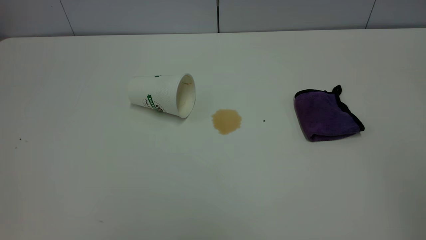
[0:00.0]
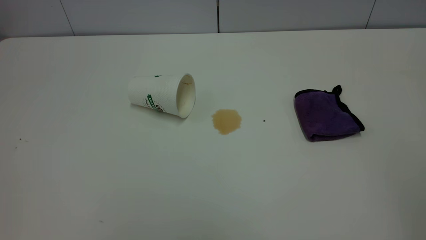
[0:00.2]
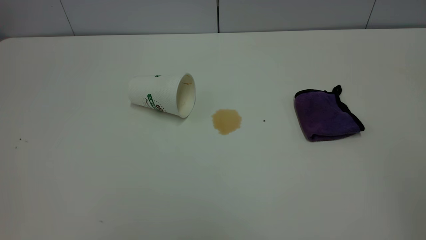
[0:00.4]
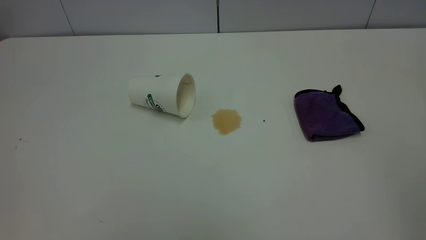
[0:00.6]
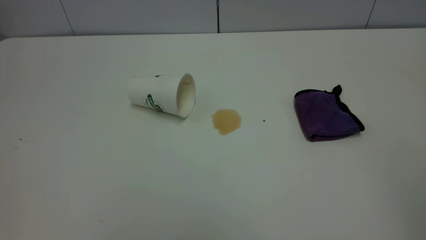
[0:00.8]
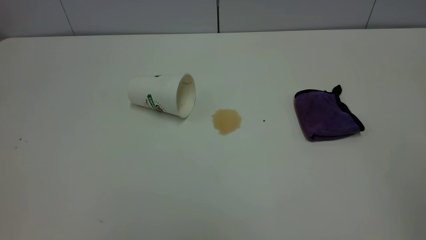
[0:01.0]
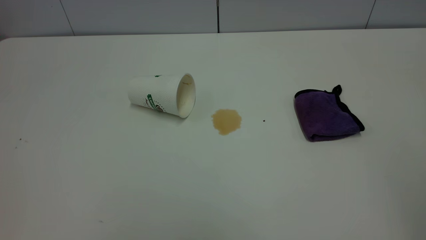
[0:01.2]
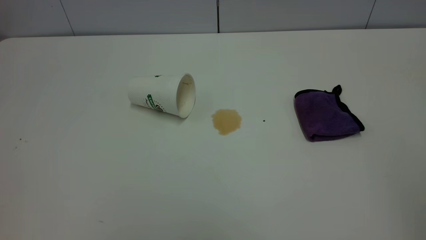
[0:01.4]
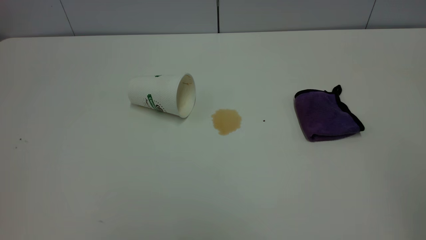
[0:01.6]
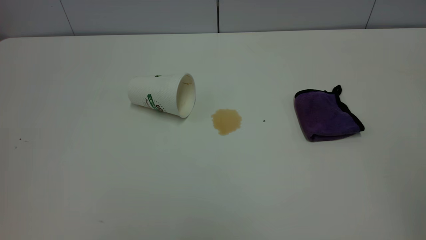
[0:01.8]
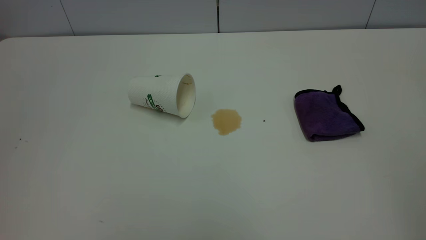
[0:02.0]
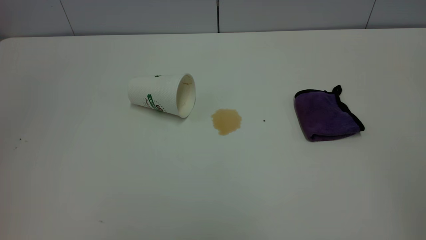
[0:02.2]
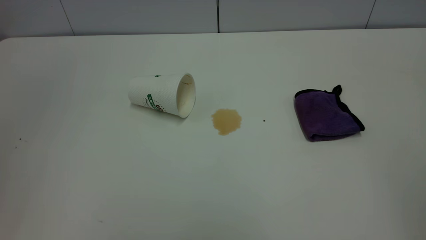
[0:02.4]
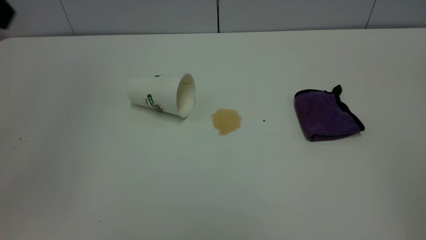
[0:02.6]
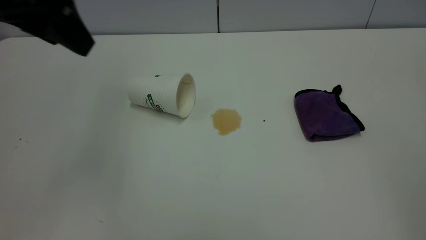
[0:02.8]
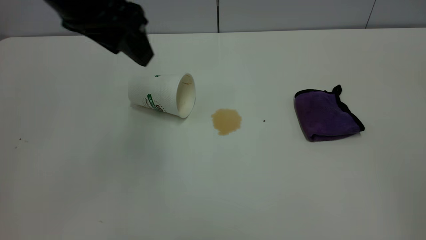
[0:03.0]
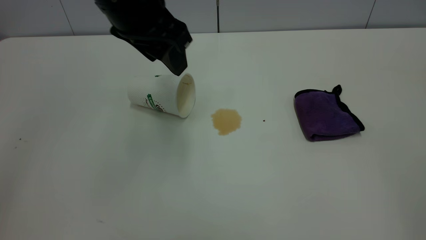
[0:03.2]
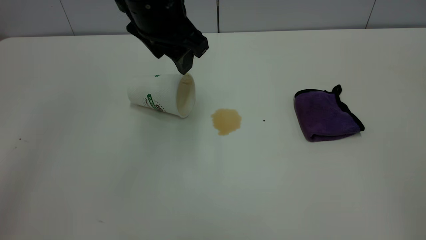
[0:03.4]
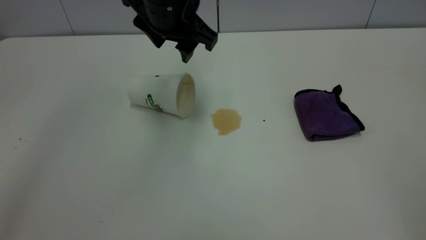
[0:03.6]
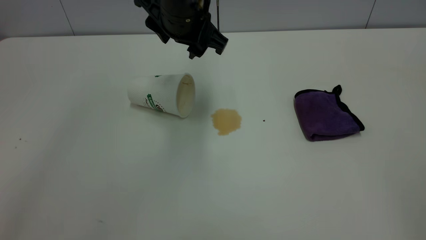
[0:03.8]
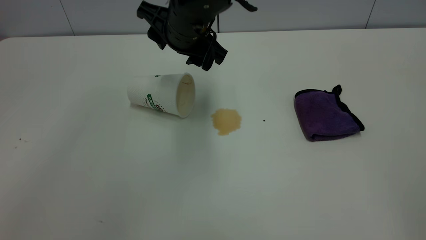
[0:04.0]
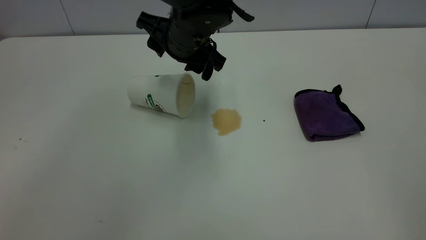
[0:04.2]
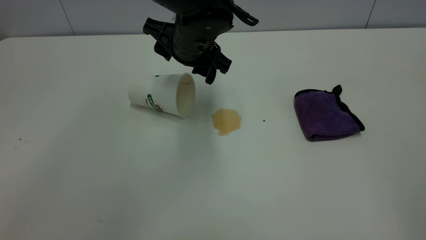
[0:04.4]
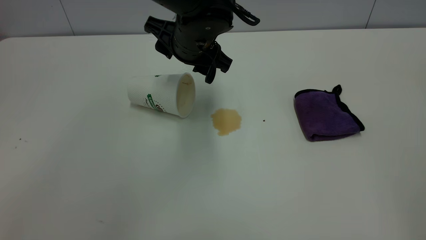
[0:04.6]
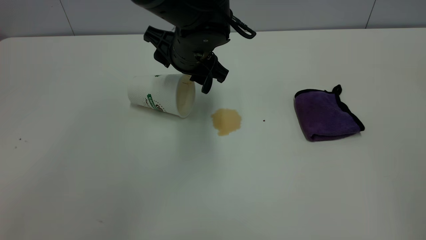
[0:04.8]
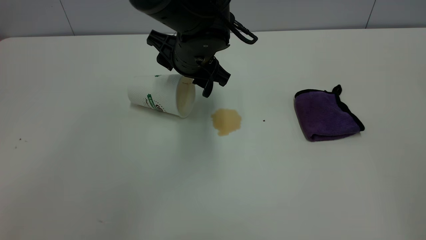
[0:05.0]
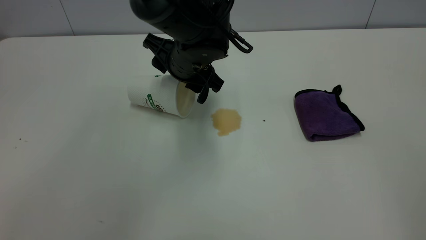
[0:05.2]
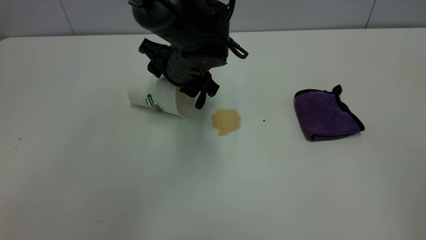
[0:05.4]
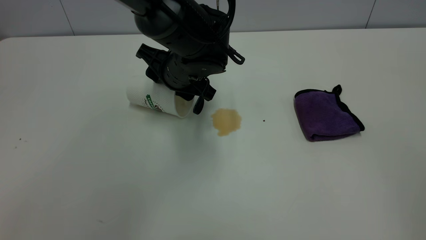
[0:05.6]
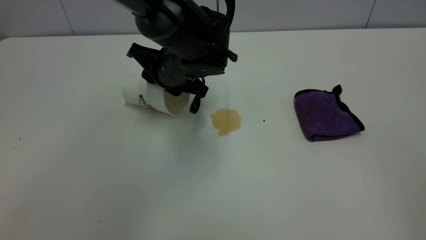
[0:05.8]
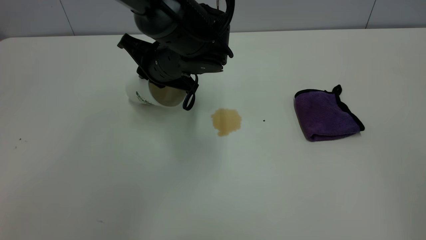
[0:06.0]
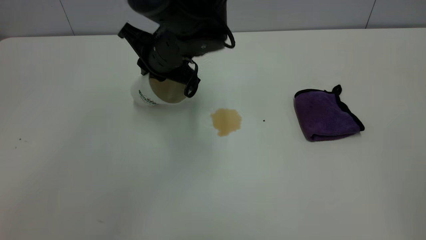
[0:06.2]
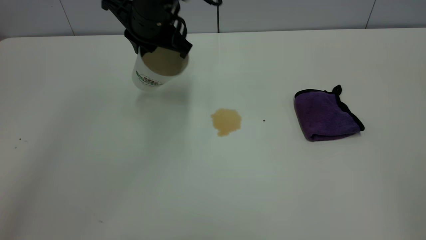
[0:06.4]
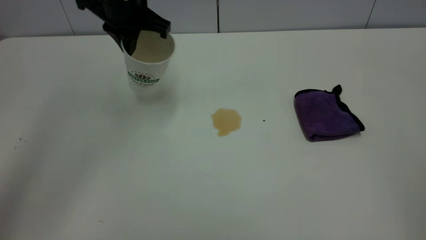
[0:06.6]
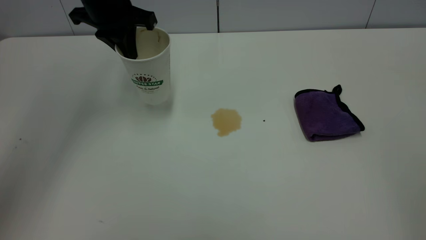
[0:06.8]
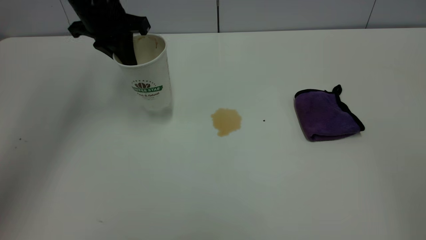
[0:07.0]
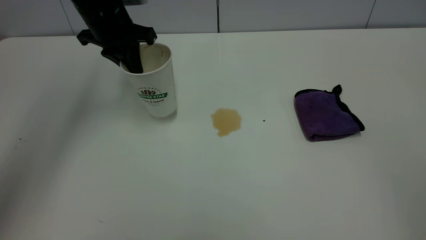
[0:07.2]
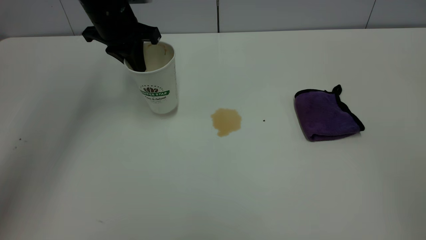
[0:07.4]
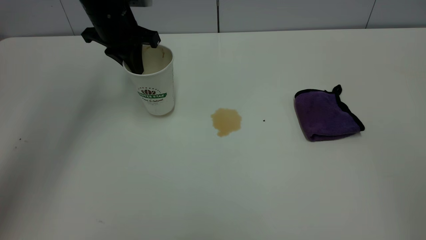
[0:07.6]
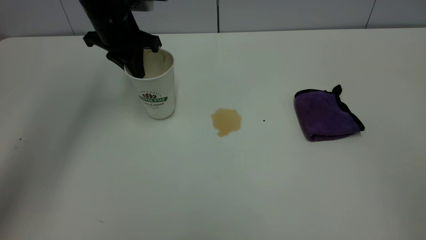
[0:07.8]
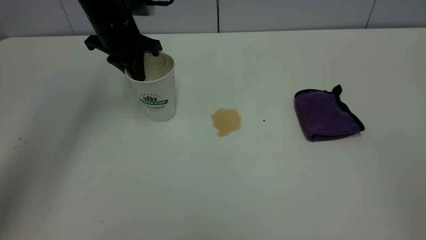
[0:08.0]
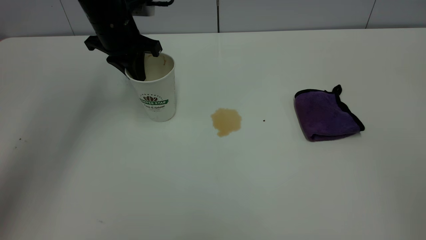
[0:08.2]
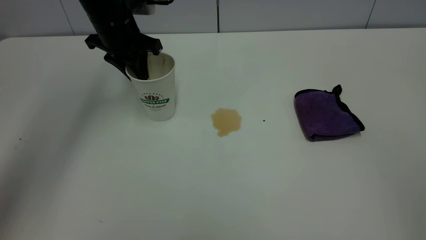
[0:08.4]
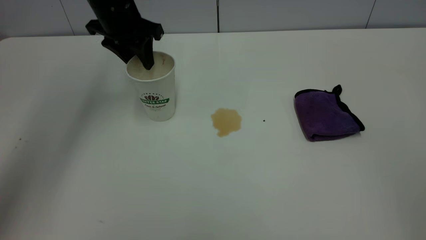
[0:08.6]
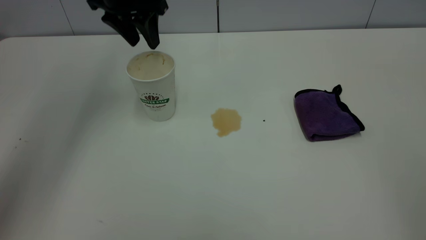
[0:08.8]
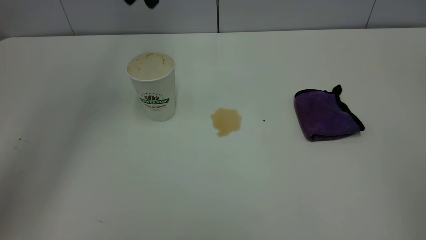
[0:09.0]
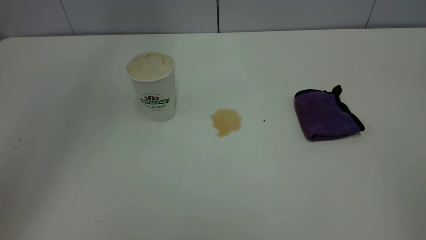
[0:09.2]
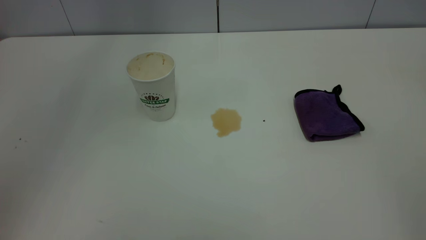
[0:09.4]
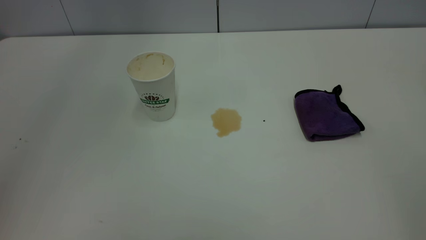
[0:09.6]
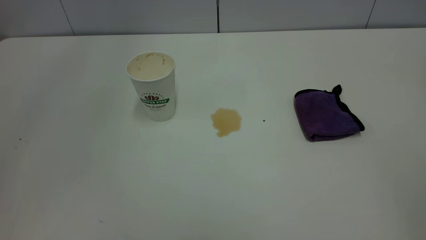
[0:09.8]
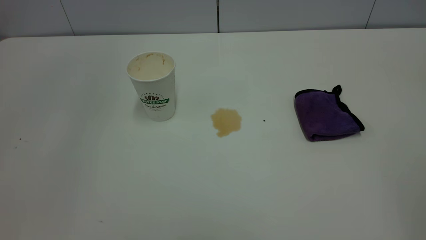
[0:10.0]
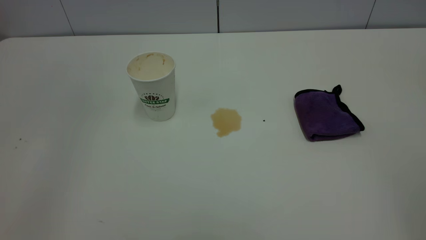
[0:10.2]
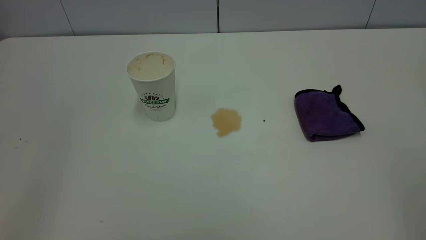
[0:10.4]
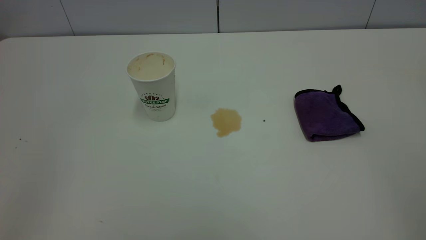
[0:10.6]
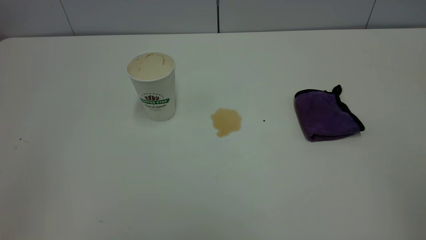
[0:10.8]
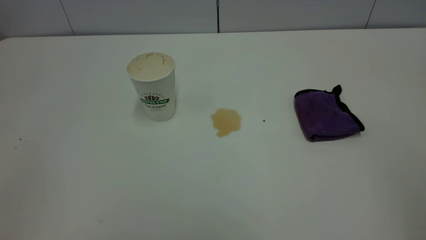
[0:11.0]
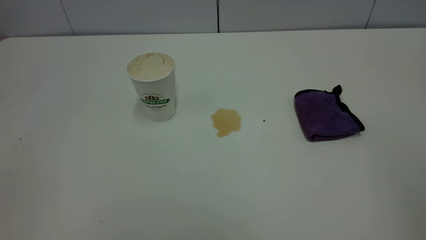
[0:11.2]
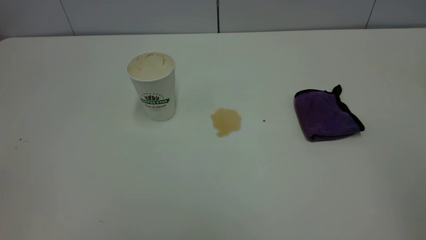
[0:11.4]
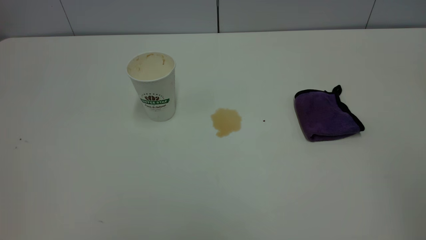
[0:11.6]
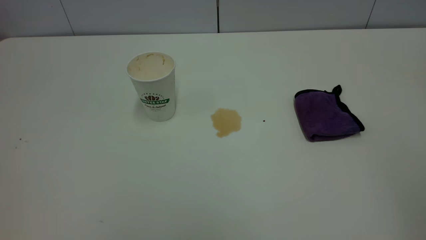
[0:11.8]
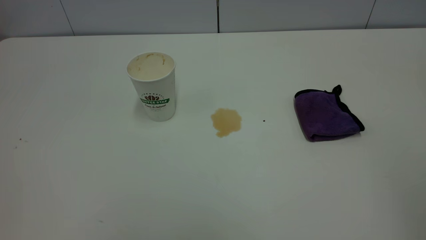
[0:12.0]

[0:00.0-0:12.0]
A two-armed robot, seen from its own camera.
Task of the whole recording: the left gripper pick up the fallen cup and place it upright, the right gripper grasp the purple rag and wipe the tea stain on the table, the right gripper put the purple rag back in its original position.
Step, 0:00.0 to 0:08.8: Stand the paper cup upright.
0:01.6 to 0:03.0: The left gripper goes approximately 35 cm forward and to the right.
0:03.0 to 0:04.4: The left gripper travels downward, to the right and forward by about 20 cm.
0:04.4 to 0:06.0: The left gripper ends up approximately 5 cm from where it was, and closes.
0:06.0 to 0:07.6: The left gripper shifts about 15 cm to the left, forward and upward.
0:07.6 to 0:09.0: The left gripper goes roughly 15 cm upward, and opens its fingers.
0:09.0 to 0:10.4: The left gripper shifts some 35 cm backward.

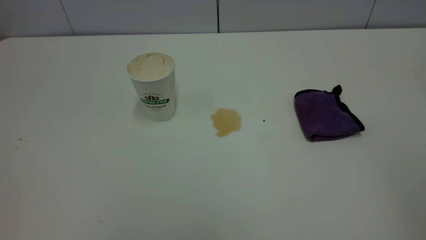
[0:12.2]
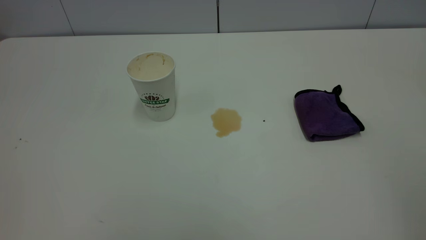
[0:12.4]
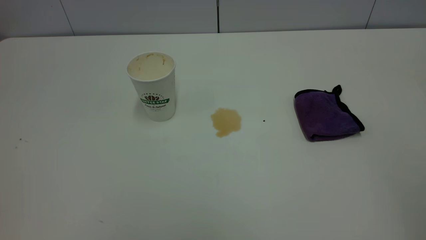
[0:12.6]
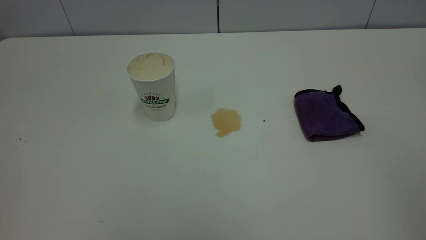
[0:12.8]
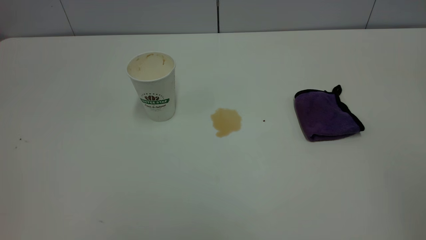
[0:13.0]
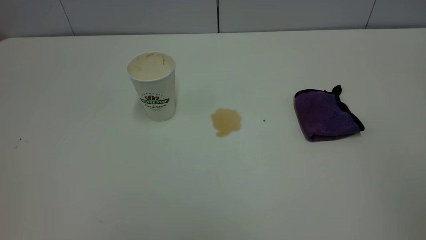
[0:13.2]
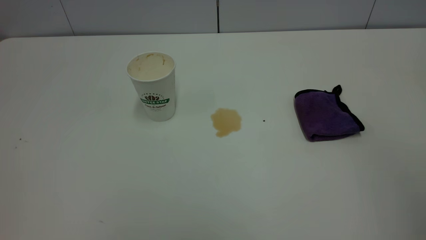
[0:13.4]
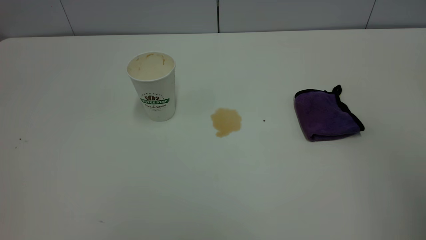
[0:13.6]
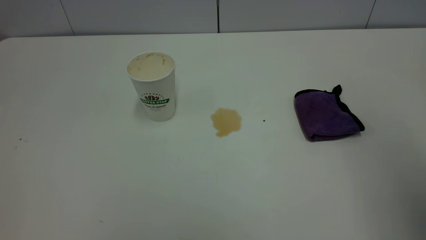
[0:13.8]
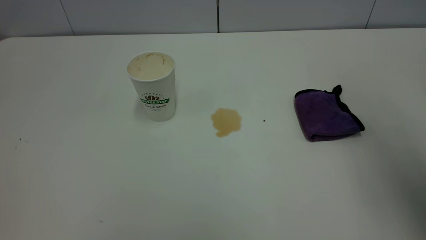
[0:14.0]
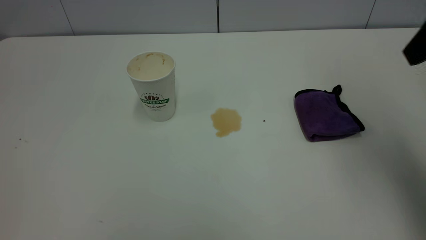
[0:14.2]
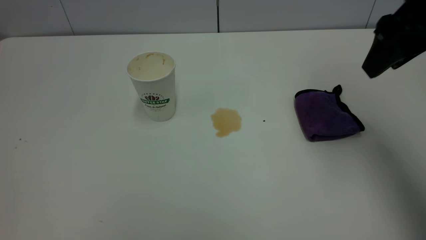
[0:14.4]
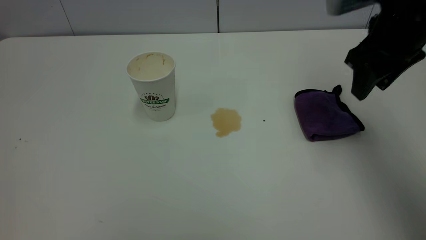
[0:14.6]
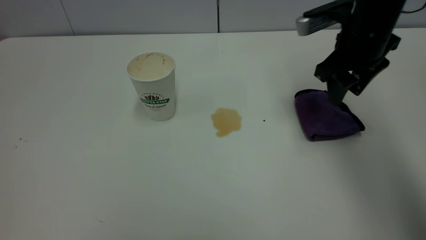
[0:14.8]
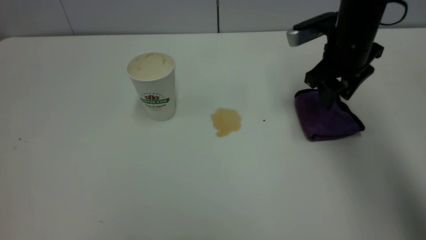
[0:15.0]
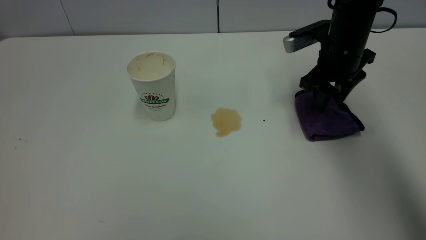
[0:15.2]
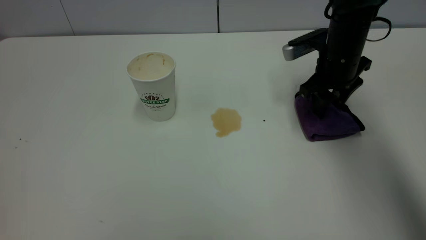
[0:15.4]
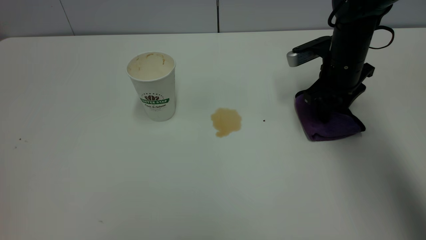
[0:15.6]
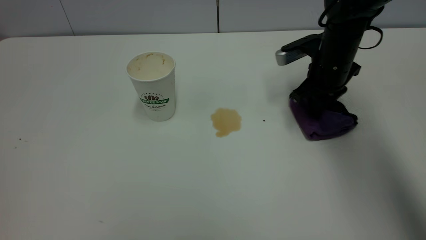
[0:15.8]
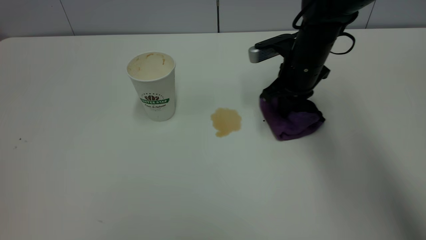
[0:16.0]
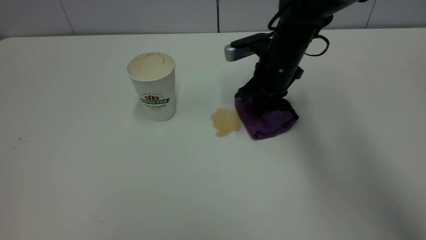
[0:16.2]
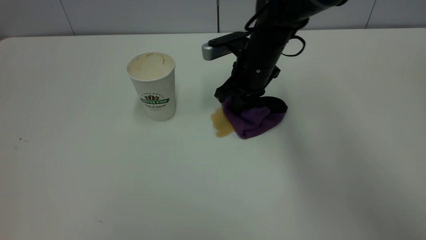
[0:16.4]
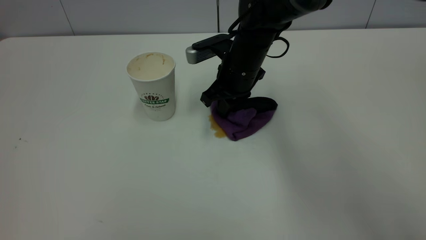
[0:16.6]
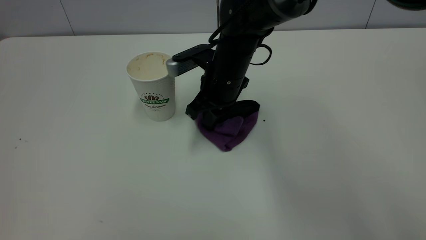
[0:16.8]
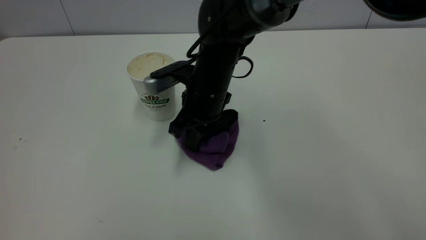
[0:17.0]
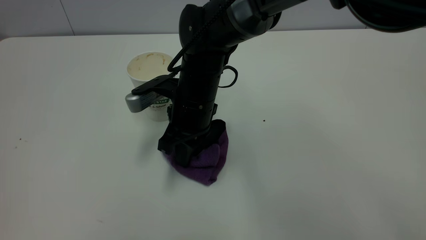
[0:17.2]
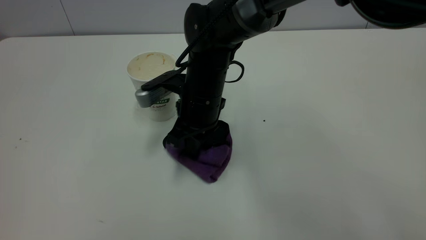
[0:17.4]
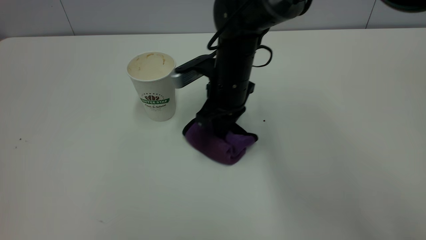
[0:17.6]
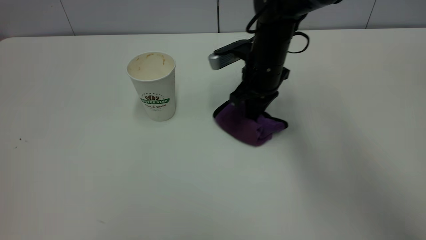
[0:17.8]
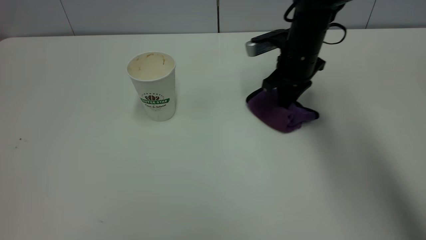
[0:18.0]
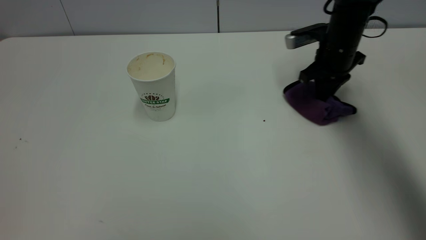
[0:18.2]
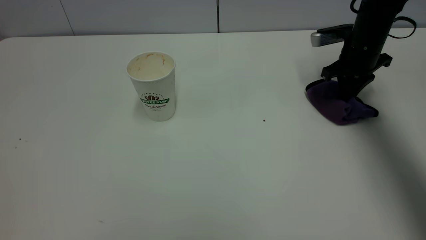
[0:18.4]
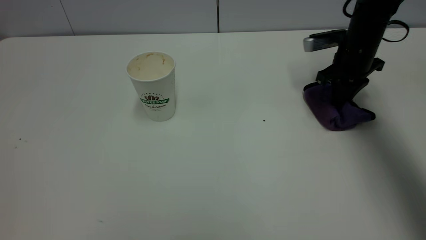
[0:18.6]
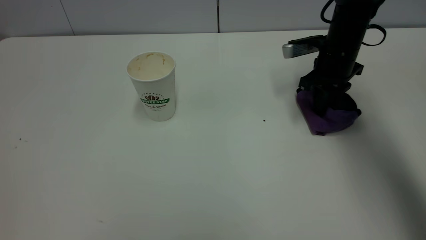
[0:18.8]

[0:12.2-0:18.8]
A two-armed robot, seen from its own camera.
Task of the whole recording: the left gripper pick up the fallen cup and place it upright, the right gripper grasp the purple rag and wipe the tea stain on the table, the right gripper put the purple rag back in its original position.
0:13.8 to 0:15.4: The right gripper heads forward and downward, covering approximately 35 cm.
0:15.4 to 0:17.2: The right gripper heads to the left, covering about 25 cm, and closes up.
0:17.2 to 0:18.8: The right gripper moves to the right and forward, some 25 cm.
